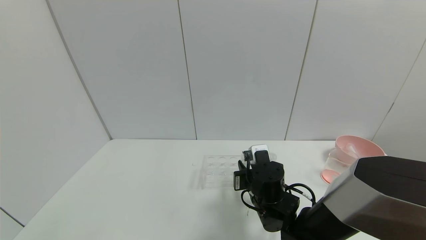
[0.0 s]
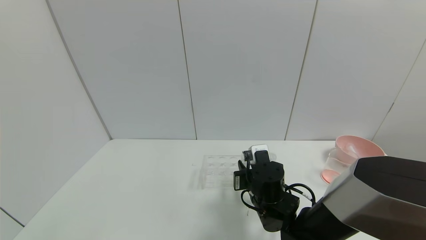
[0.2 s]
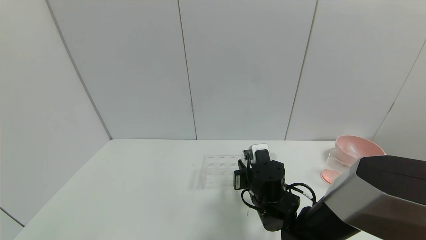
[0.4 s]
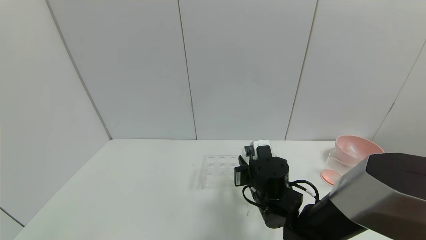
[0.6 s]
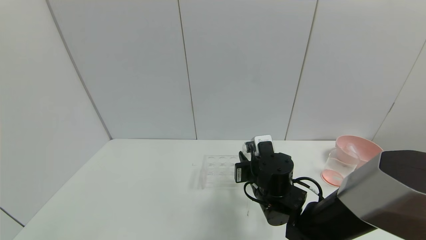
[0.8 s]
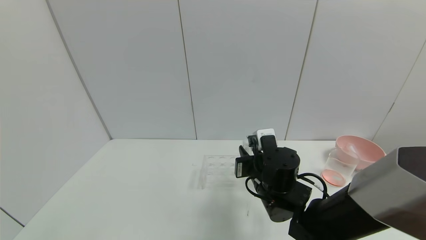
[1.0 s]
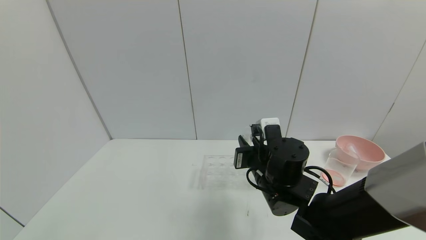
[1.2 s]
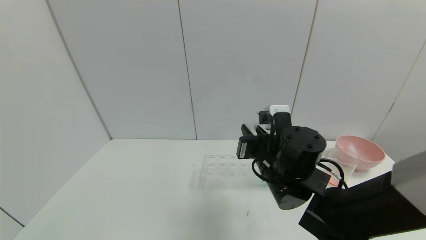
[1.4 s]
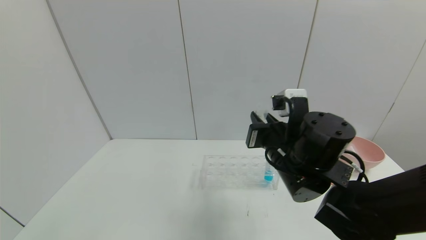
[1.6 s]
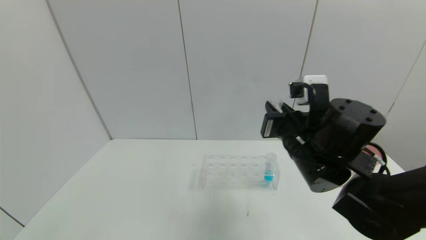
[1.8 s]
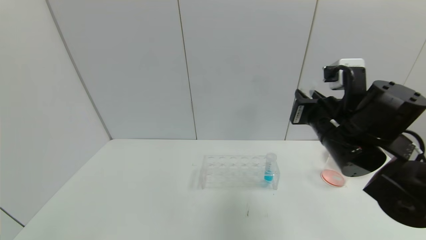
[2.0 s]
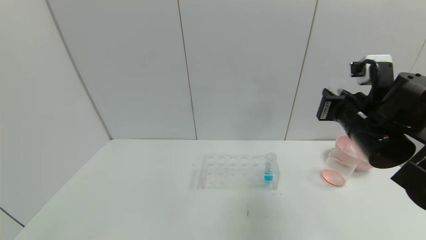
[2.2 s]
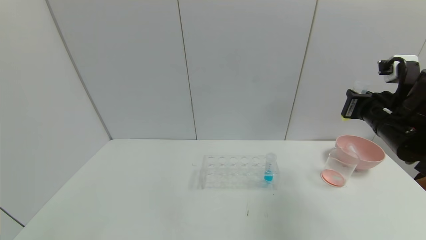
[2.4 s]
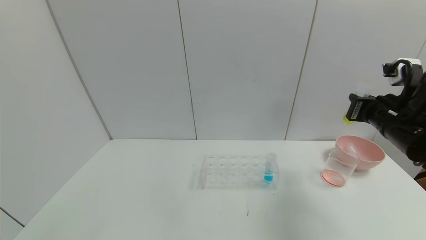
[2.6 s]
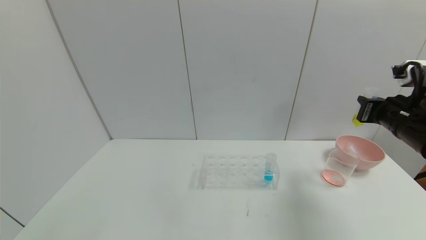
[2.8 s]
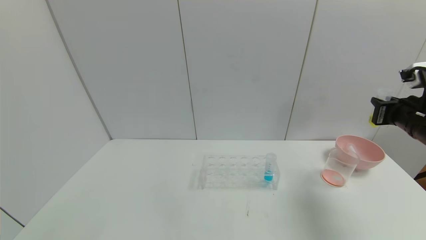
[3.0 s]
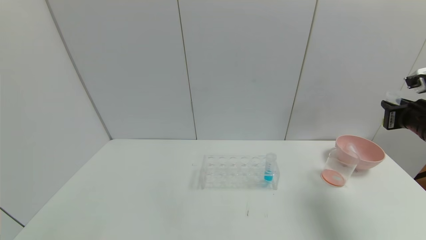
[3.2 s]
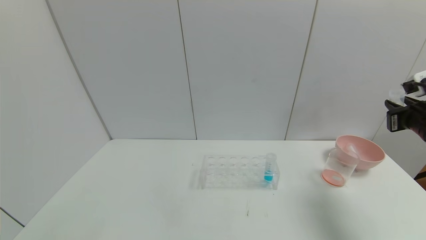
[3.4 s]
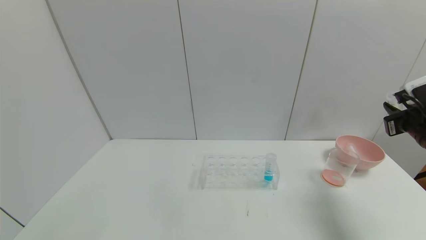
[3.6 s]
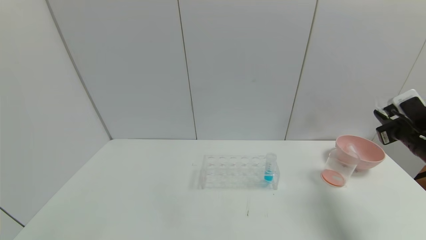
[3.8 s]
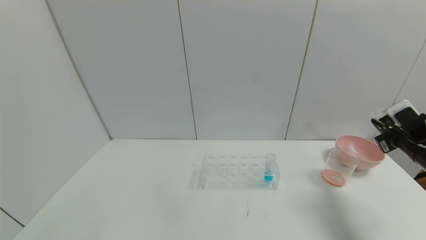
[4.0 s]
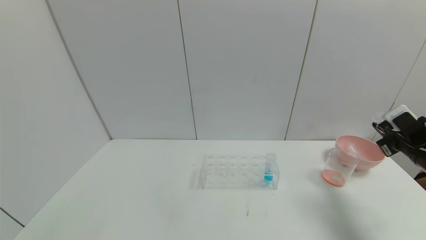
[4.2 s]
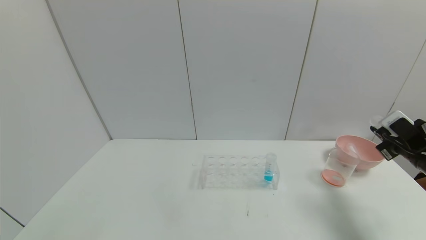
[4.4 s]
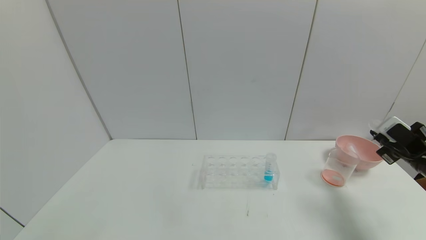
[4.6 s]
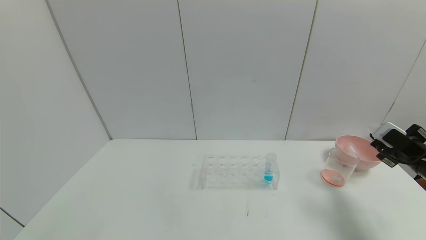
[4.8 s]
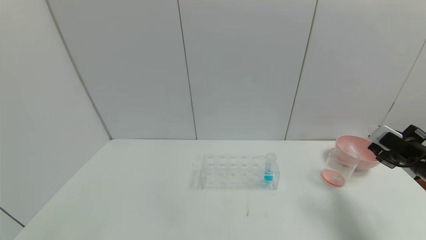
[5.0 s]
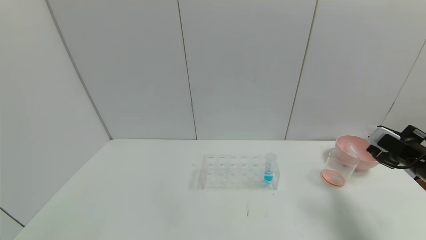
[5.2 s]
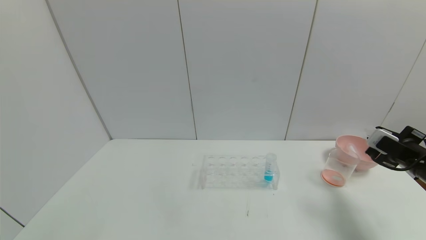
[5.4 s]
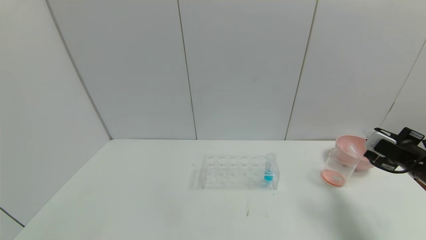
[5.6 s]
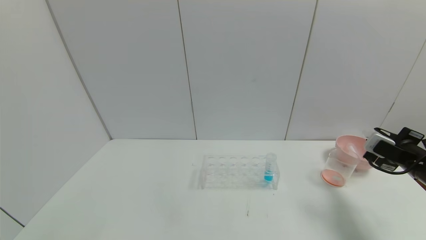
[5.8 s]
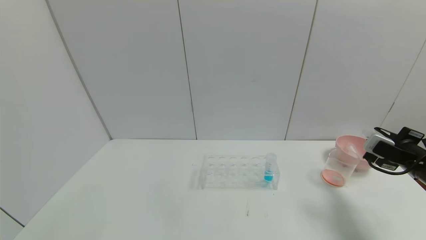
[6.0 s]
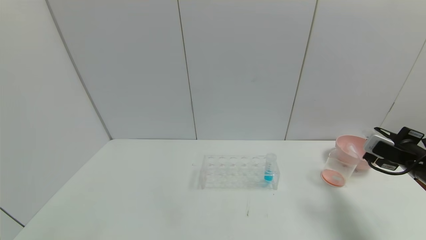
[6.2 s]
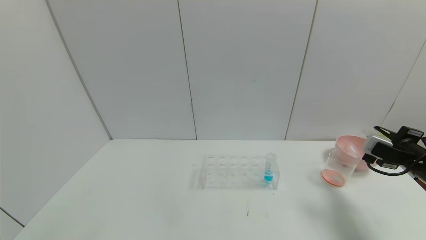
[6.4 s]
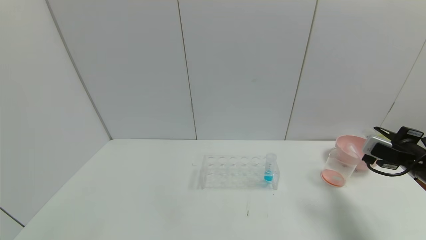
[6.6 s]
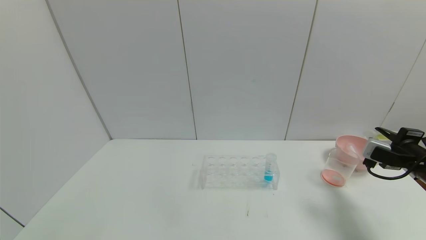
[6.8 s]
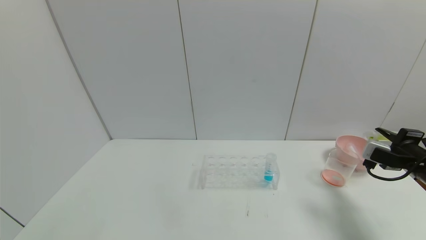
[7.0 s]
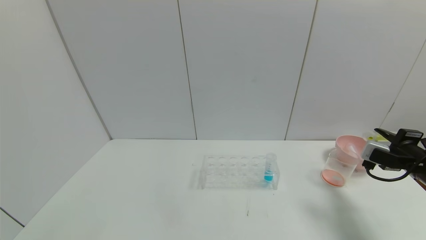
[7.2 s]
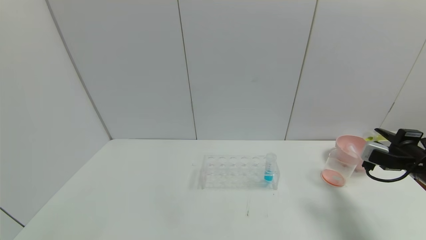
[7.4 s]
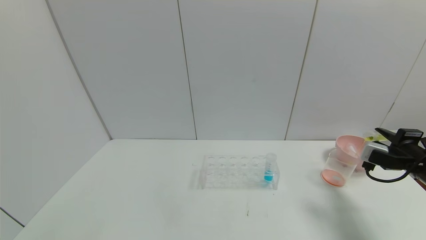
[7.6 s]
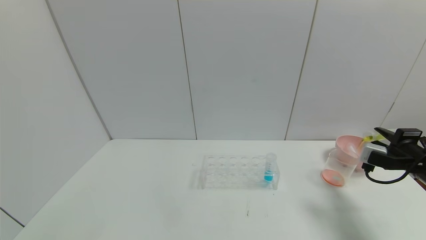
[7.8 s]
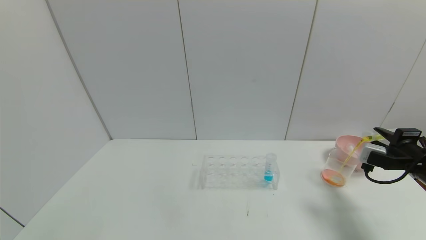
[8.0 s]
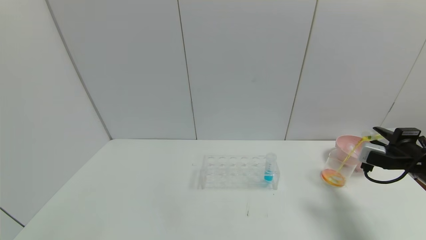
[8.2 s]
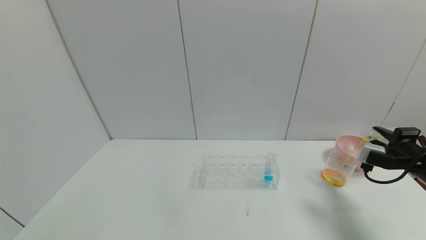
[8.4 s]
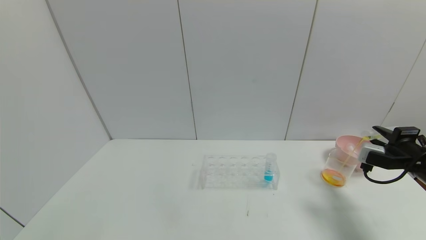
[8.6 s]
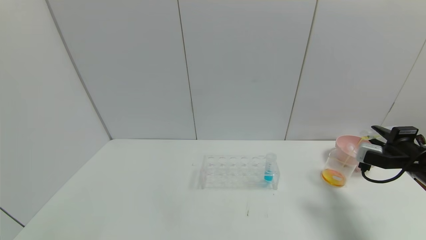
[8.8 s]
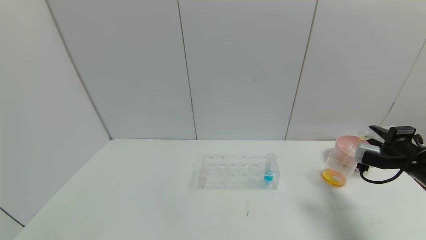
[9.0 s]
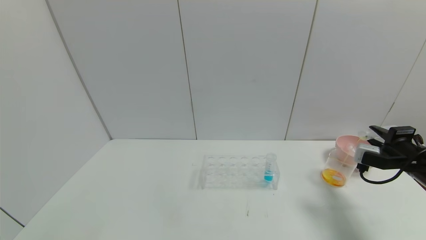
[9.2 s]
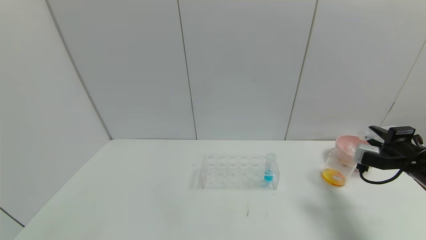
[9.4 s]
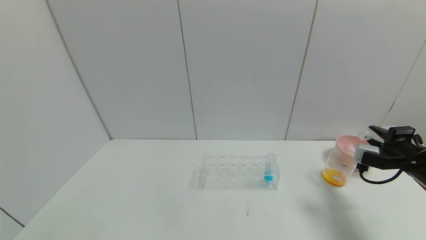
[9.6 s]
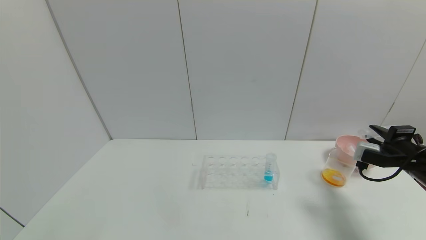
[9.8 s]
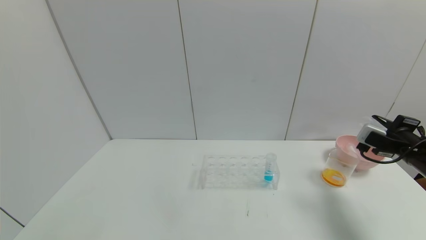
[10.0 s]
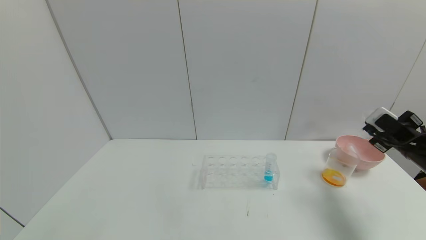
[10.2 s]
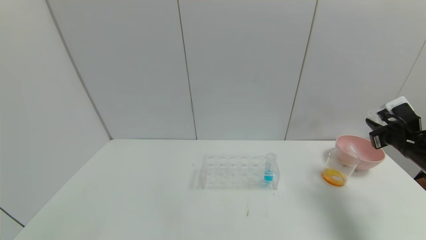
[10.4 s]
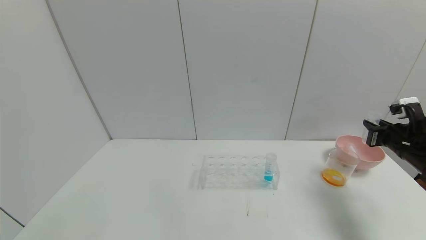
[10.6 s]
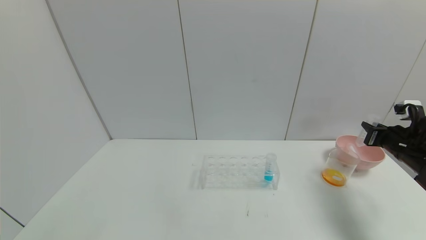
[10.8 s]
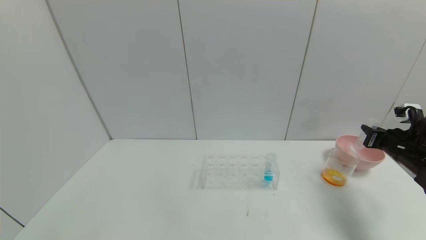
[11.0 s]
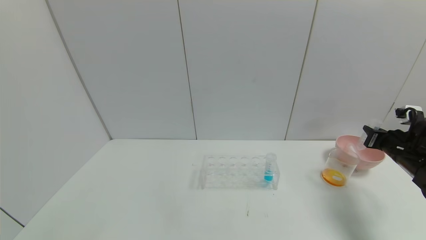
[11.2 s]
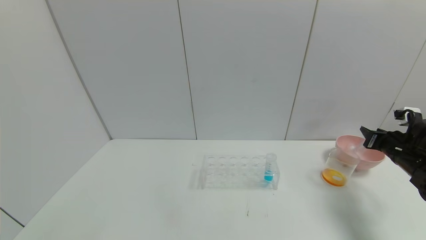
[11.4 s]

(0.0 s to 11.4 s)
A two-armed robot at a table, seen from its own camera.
Task of the whole recording: pick up the test tube with yellow pigment and the test tube with red pigment by grippers and pour them into the beaker.
Step, 0.0 s - 9.4 s: Pour the yellow reagent into the graduated cylinder with the right gripper.
Step, 9.6 s - 11.4 s: Place the test tube into the bowl with the right gripper.
0.0 s - 1.4 s: The right gripper shifts approximately 10 cm upward.
1.4 s - 2.8 s: The right gripper heads to the right, covering approximately 25 cm.
2.8 s - 4.2 s: The right gripper goes approximately 10 cm to the right and downward.
5.6 s - 7.2 s: The grippers make only small movements.
7.2 s - 10.0 s: The grippers make only small movements.
10.0 s - 11.4 s: The right gripper shifts by approximately 5 cm, and opens up.

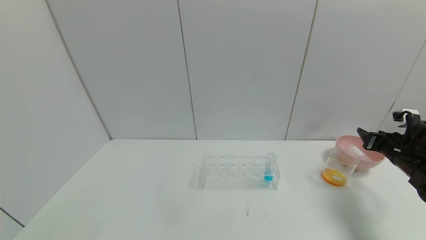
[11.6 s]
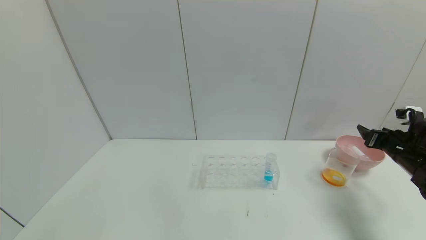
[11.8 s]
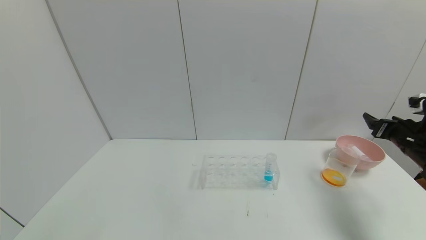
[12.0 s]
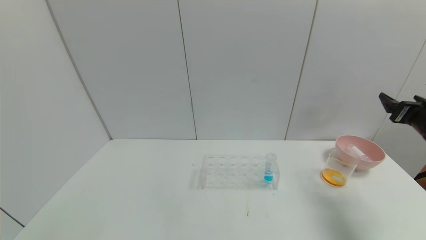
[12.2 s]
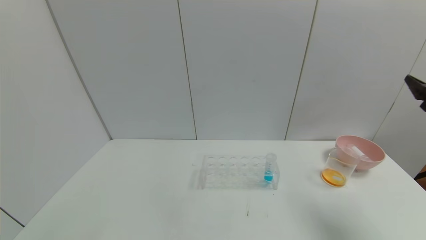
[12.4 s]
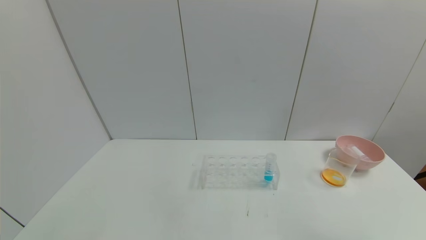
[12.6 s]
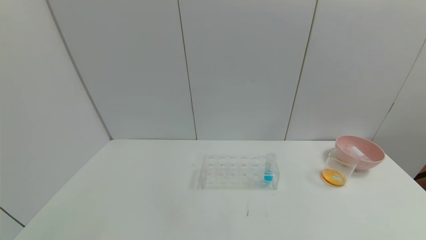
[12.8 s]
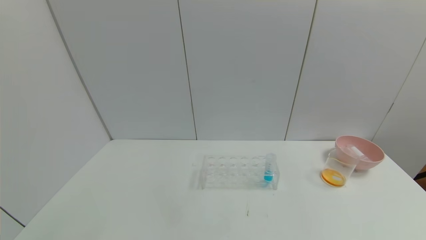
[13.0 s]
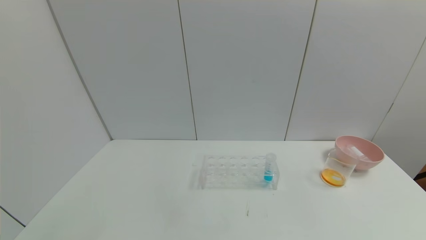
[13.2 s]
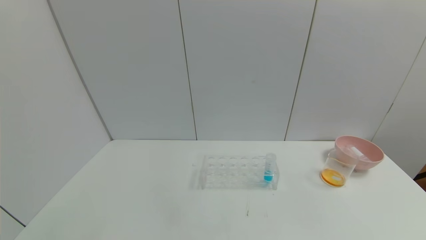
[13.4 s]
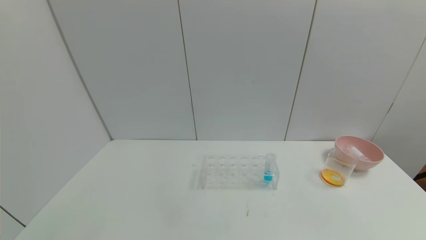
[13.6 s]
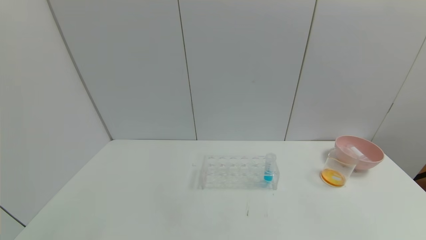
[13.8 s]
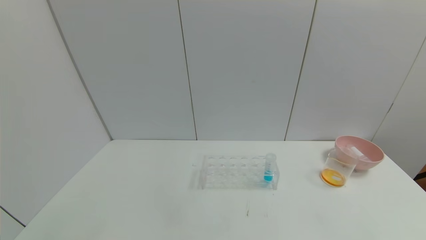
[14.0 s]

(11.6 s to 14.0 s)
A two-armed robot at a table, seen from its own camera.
Task of the whole recording: pick up the test tube with yellow pigment and the test tube with red pigment by grippers and pour them into the beaker.
11.6 s - 12.8 s: The right gripper is displaced backward and upward by approximately 35 cm, and opens up.
